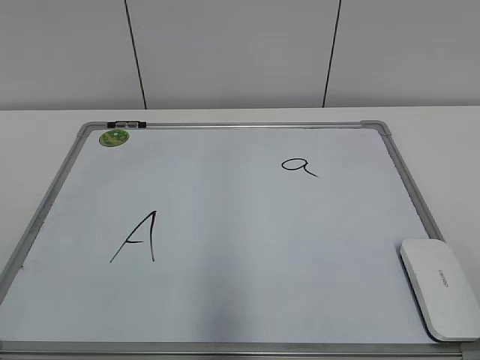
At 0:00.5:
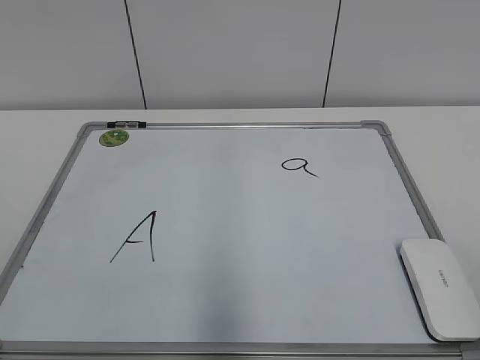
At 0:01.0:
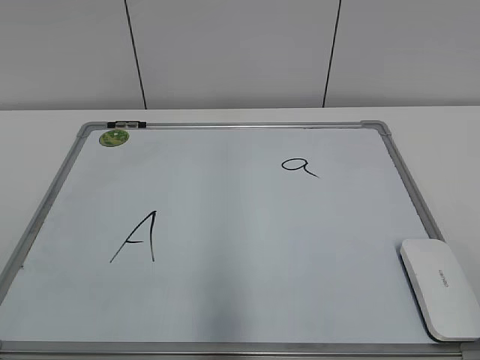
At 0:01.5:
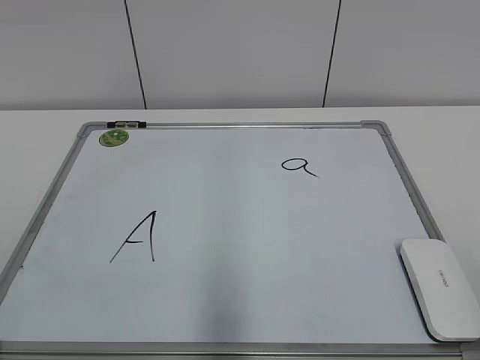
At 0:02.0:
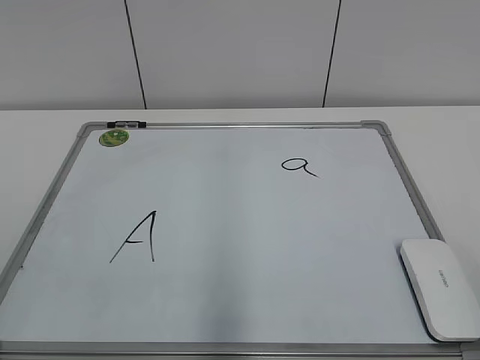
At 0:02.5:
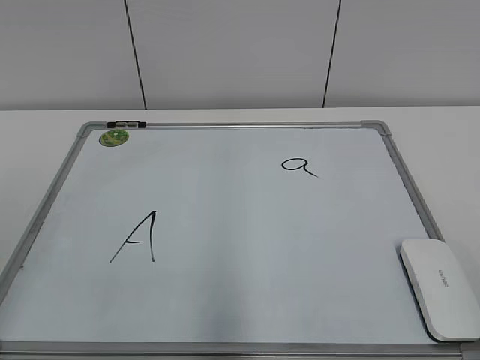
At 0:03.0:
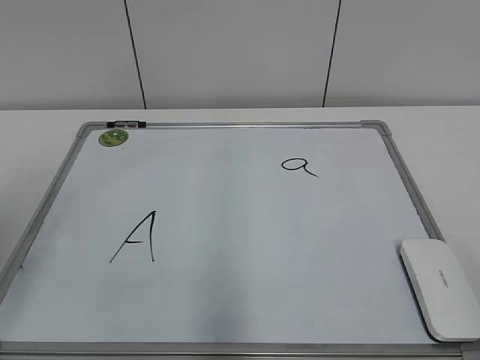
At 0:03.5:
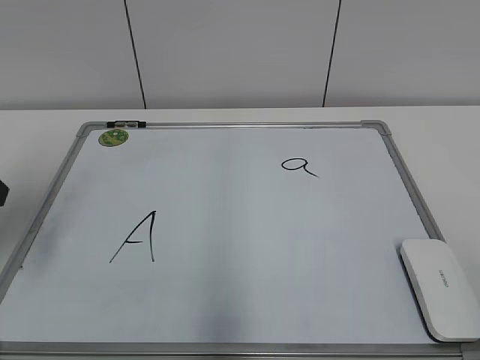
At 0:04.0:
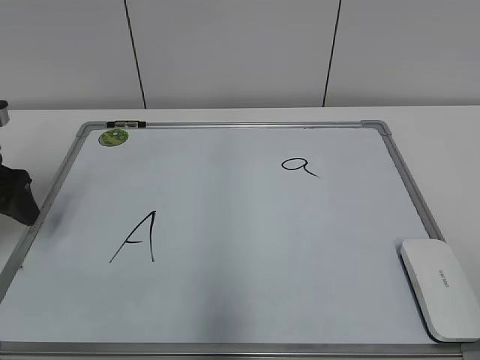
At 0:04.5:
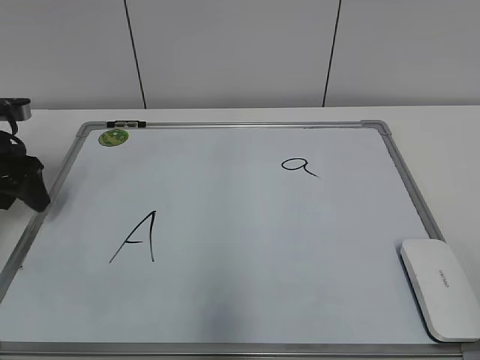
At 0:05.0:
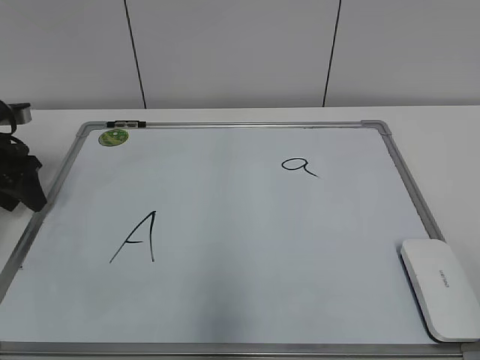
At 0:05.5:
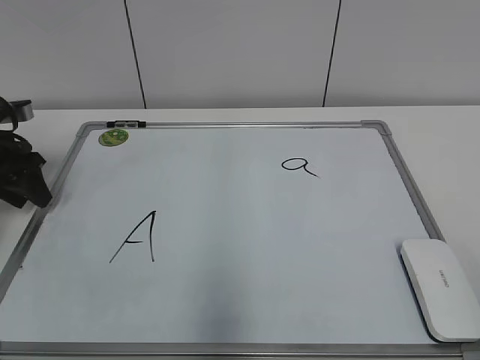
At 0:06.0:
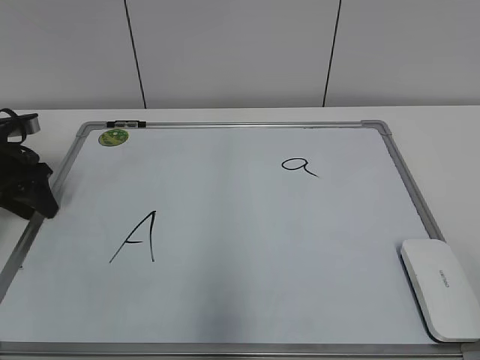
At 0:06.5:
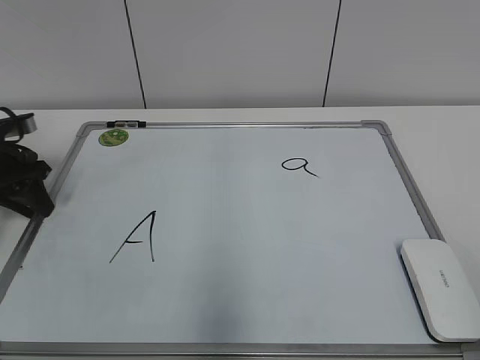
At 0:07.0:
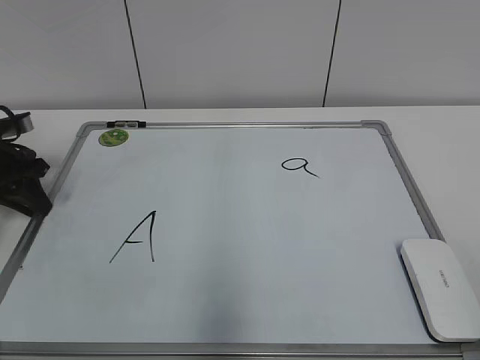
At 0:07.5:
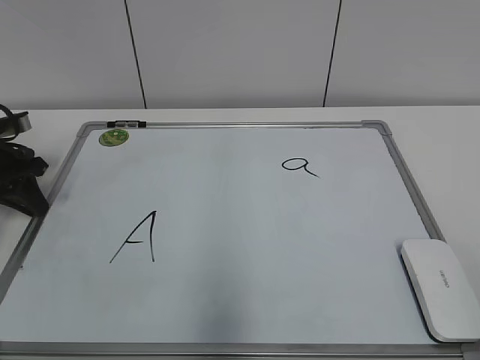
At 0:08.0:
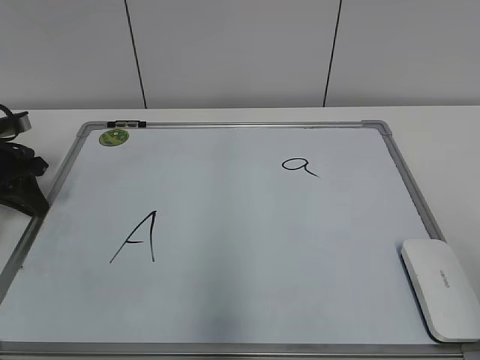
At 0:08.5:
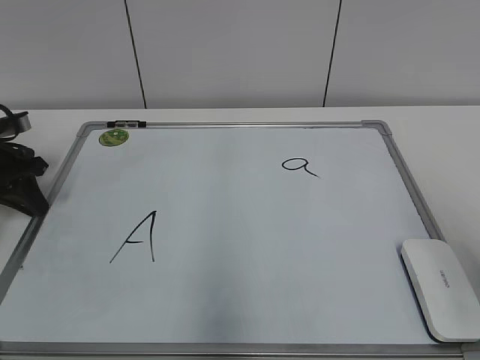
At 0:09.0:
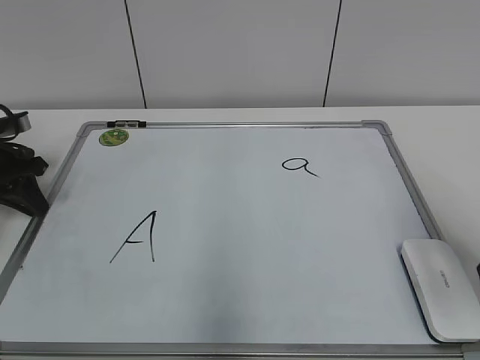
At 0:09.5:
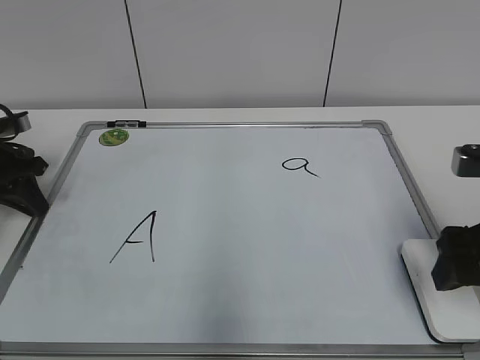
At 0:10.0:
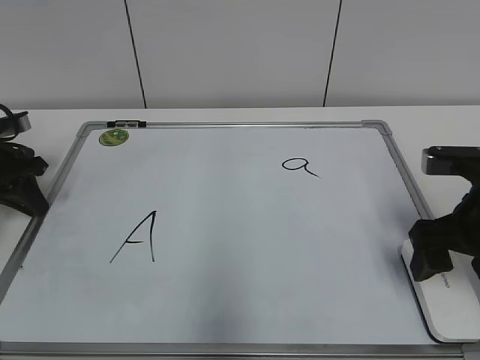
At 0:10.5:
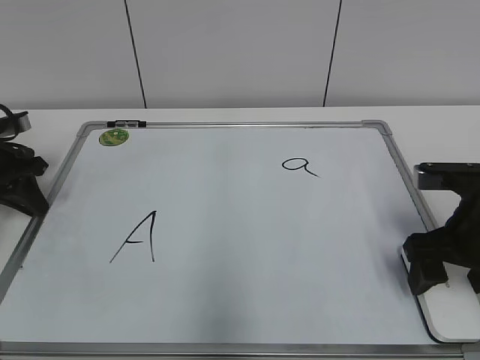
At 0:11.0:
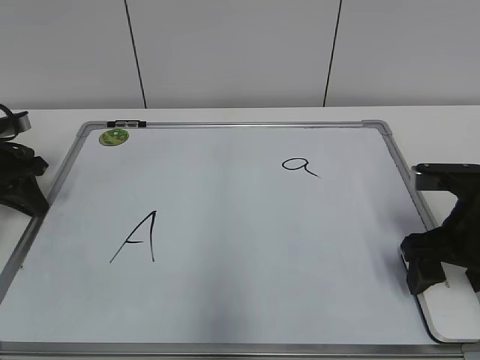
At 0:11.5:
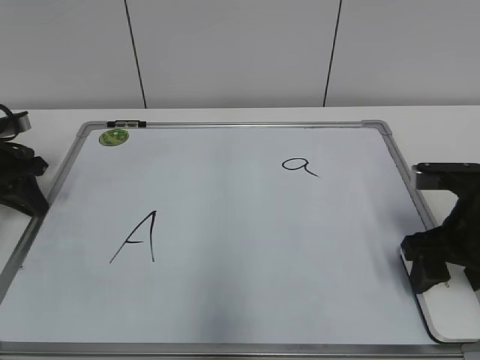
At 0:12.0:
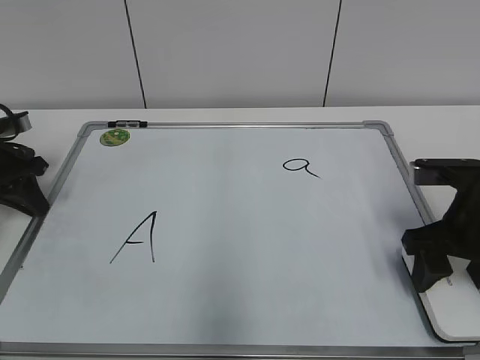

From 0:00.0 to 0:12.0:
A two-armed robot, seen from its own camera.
Task of the whole recording: pick up the eraser on the blackboard and erase the letter "a".
Step, from 0:00.0 to 0:07.0: Hold the drawing board steady with your left hand.
Step, from 0:07.5 to 0:11.5: Grab the eraser with your right hand.
From 0:02.0 to 0:04.0: The left gripper moves forward, some 30 cm.
From 0:04.0 to 0:06.0: The left gripper moves forward and downward, roughly 10 cm, and closes.
From 0:06.0 to 0:08.0: The left gripper closes.
From 0:08.0 to 0:10.0: The right gripper is displaced forward and downward by roughly 25 cm, and opens.
From 0:10.0 to 0:12.0: The right gripper closes its fingers.

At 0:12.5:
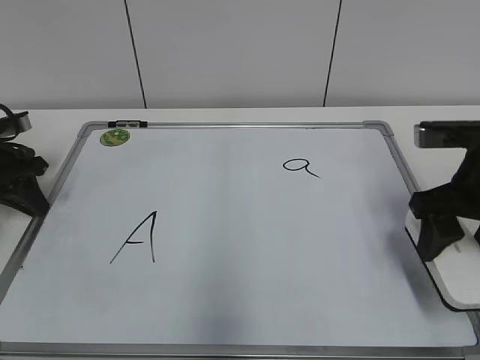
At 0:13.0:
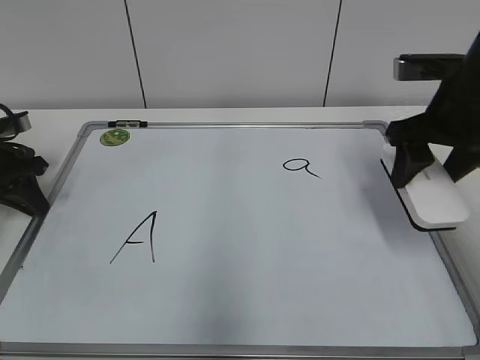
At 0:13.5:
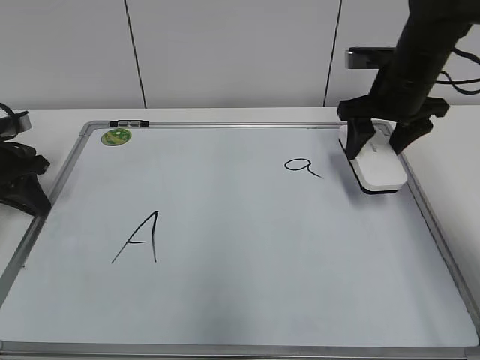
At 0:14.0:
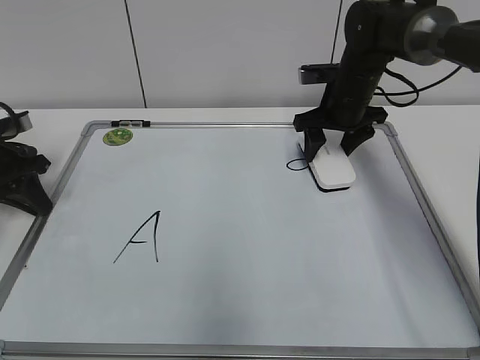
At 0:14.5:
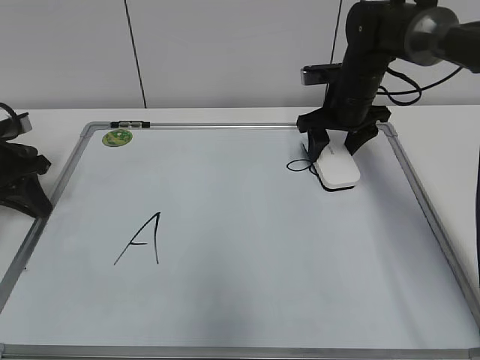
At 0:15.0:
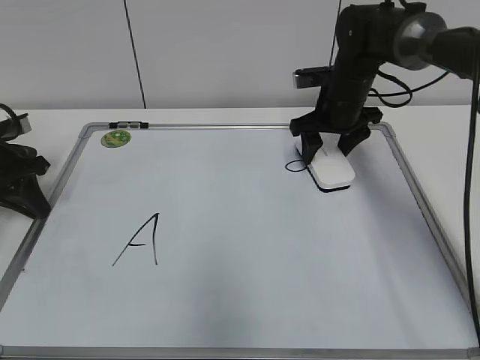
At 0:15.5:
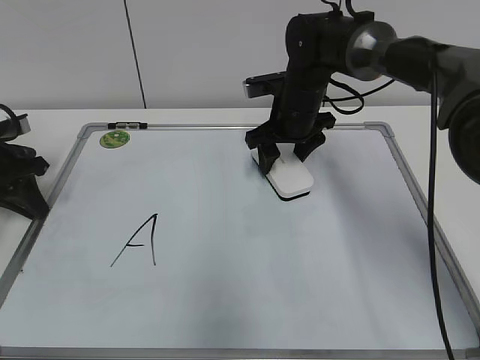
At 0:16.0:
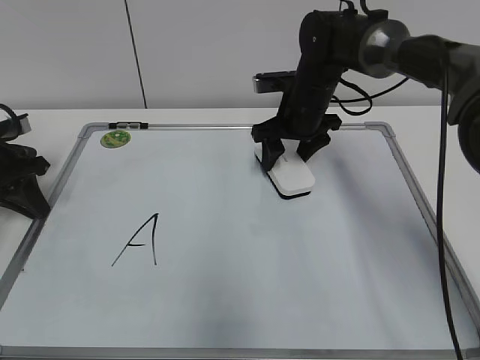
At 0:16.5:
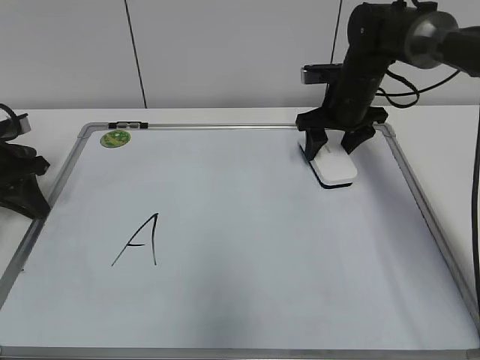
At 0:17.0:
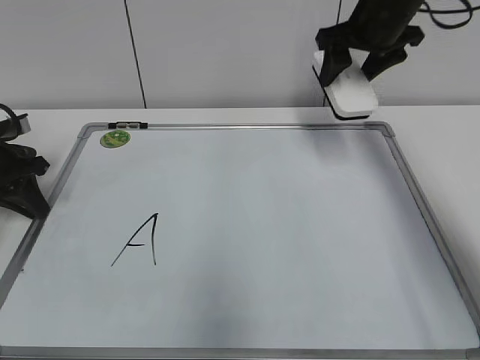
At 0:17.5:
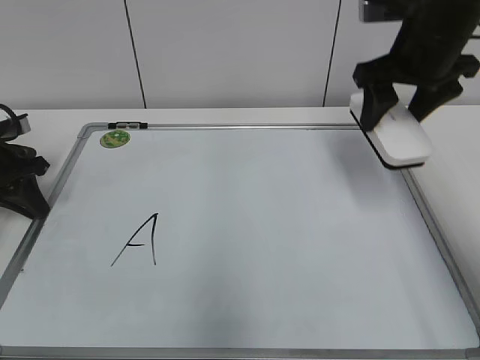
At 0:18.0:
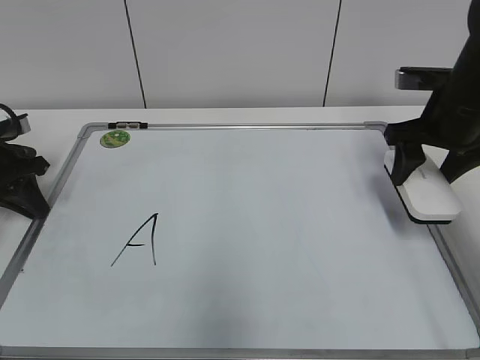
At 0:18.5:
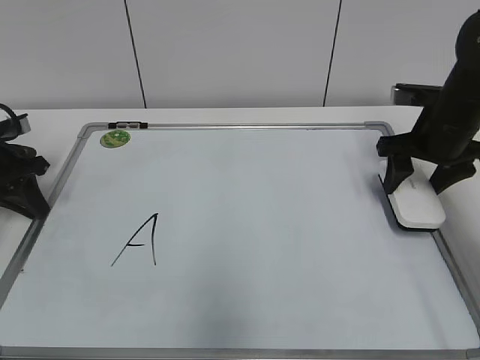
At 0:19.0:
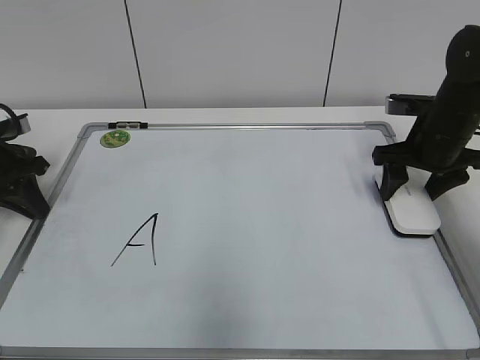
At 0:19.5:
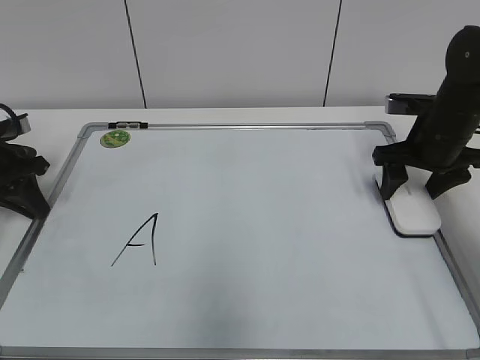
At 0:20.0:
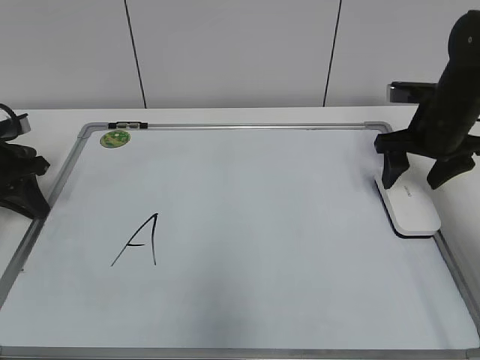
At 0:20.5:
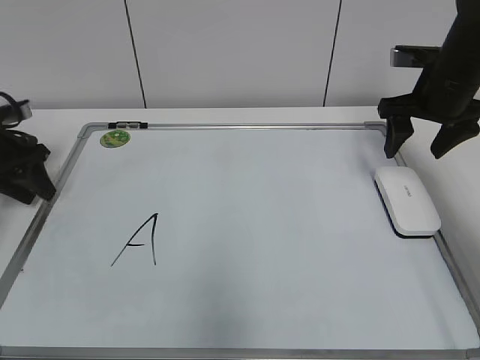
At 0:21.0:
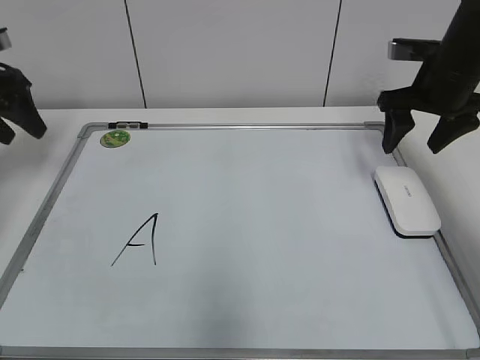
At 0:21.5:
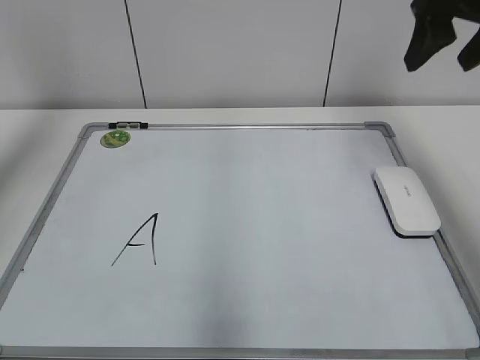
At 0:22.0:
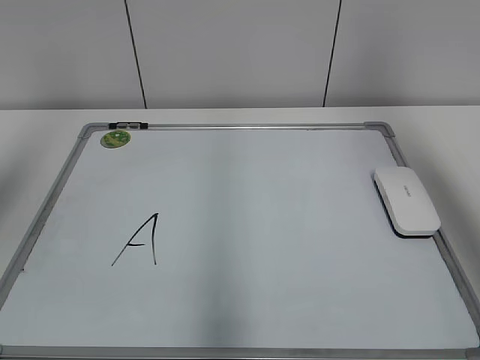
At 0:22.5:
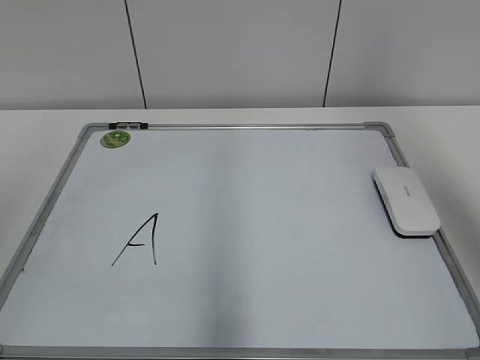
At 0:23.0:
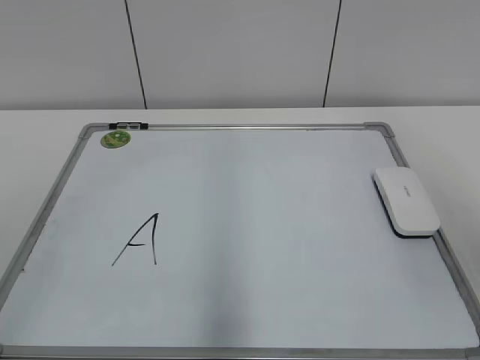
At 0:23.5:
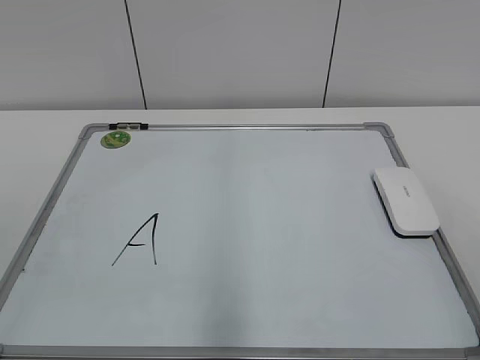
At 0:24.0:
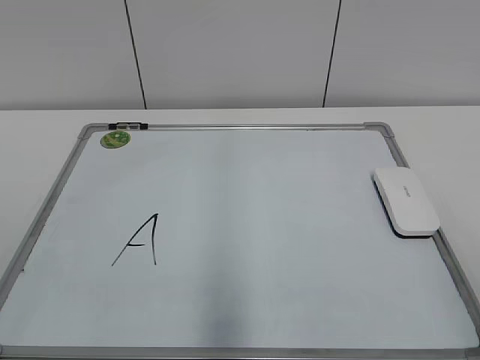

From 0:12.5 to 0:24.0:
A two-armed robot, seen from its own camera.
Task of the whole recording: pick up the eraser on the blackboard and erase the letter "a".
Step, from 0:12.5 to 0:17.5: Erase the letter a with your right hand.
Step, from 0:18.0 to 0:19.5: Put down the eraser with your right hand.
From 0:12.5 to 0:14.5: The right gripper moves forward, roughly 20 cm.
From 0:14.5 to 0:16.5: The right gripper reaches roughly 10 cm to the left, then returns.
From 0:16.5 to 0:18.5: The right gripper travels backward and to the right by roughly 15 cm, and goes upward and returns, roughly 15 cm each way.
From 0:18.5 to 0:20.0: The right gripper opens up.
From 0:20.0 to 0:22.0: The grippers both shift upward and backward by about 30 cm. The left gripper opens up.
From 0:22.0 to 0:24.0: Both grippers move backward and downward, some 30 cm.

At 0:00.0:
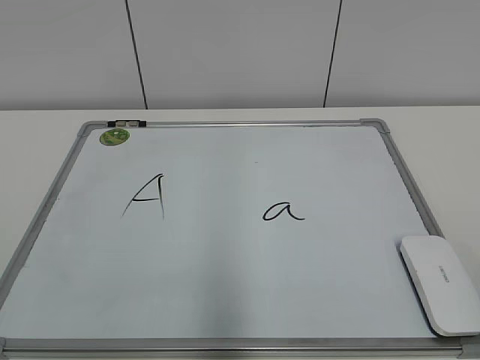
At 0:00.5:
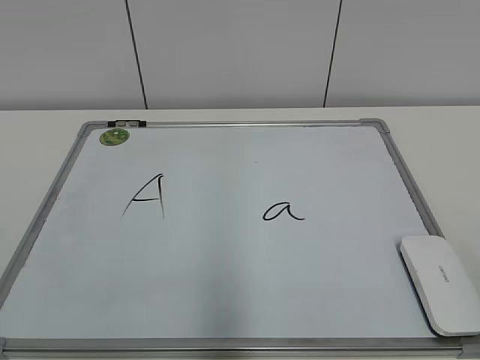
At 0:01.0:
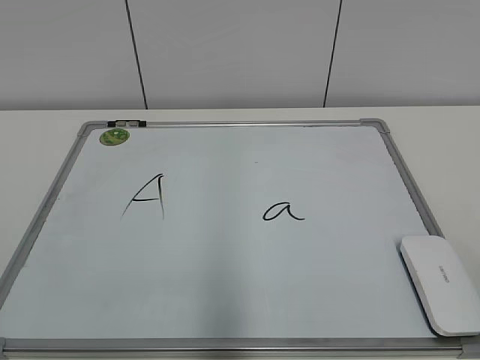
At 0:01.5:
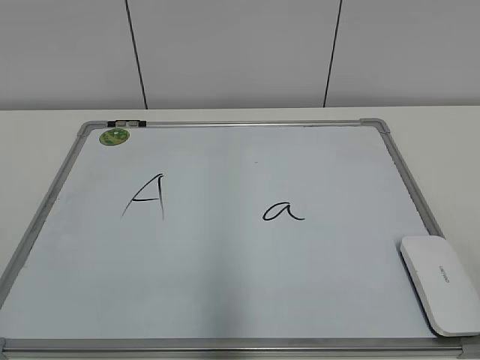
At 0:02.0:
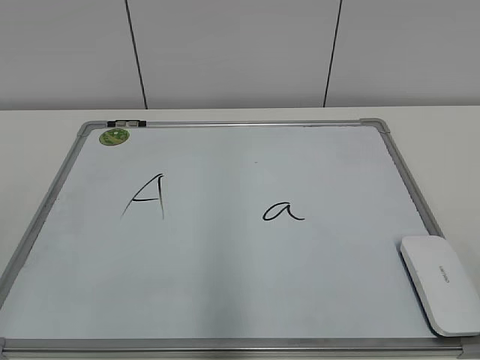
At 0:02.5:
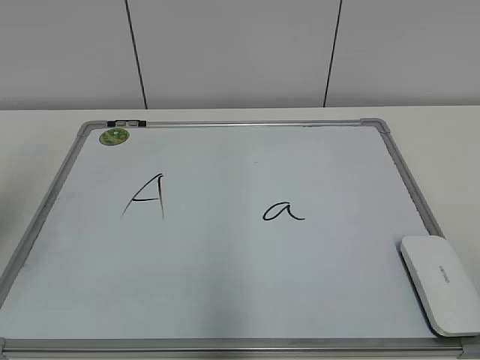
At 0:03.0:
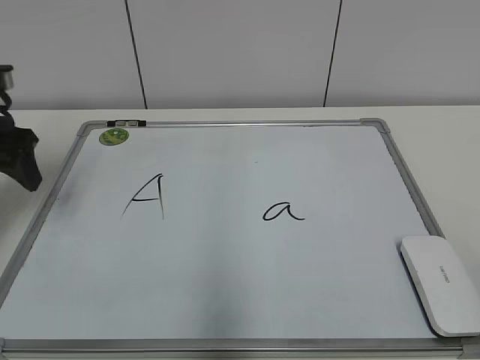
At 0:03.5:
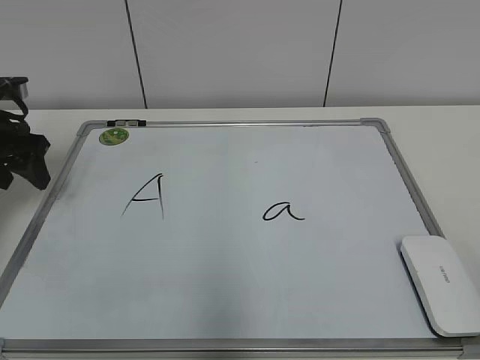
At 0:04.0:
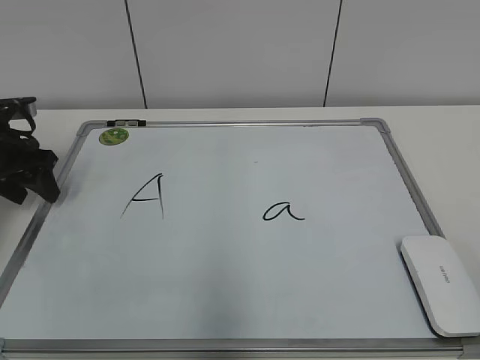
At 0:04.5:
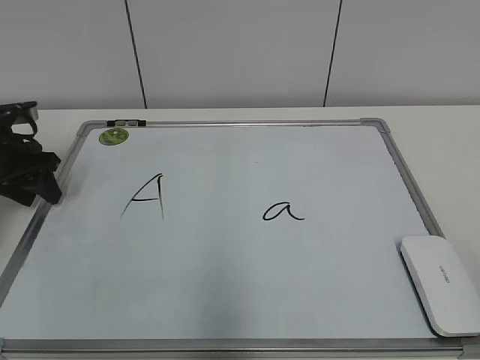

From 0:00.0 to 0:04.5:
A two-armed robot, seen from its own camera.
Task of the whole recording: pick up the eraser on the blackboard and erase the letter "a".
From 0:02.0 to 0:04.5: The left gripper is displaced forward and downward by roughly 40 cm.
